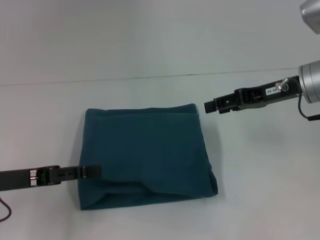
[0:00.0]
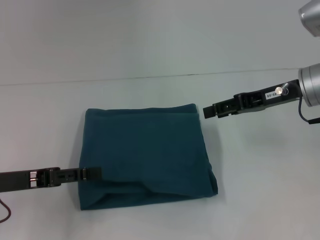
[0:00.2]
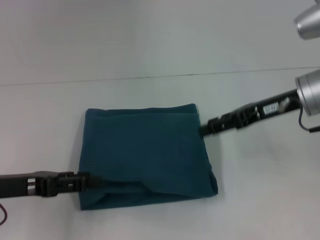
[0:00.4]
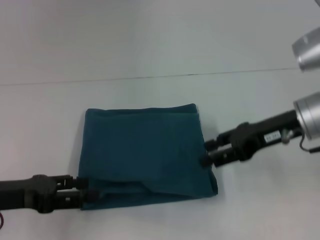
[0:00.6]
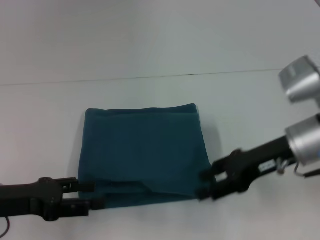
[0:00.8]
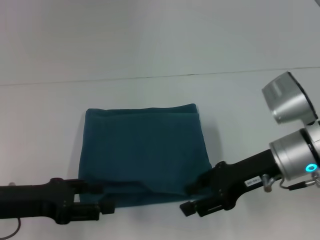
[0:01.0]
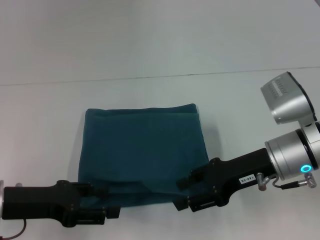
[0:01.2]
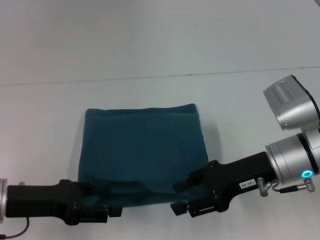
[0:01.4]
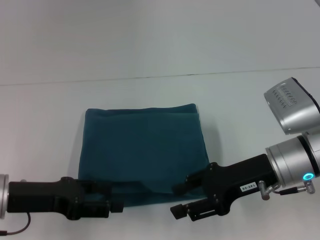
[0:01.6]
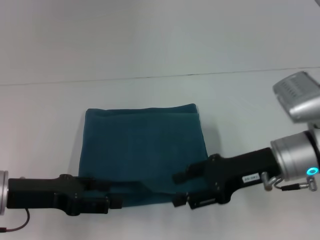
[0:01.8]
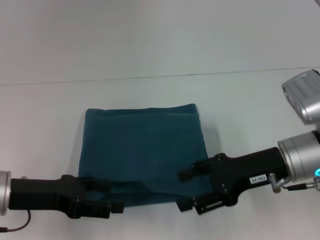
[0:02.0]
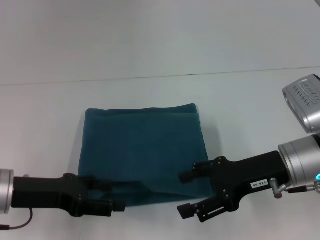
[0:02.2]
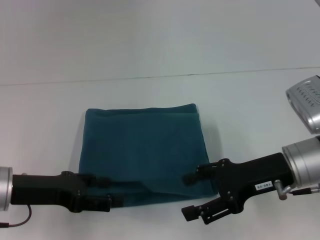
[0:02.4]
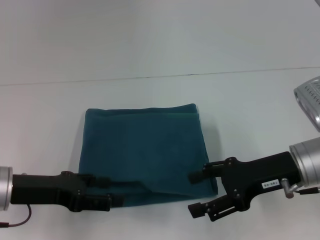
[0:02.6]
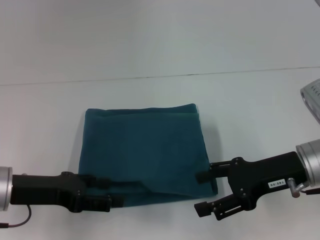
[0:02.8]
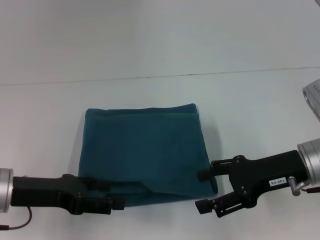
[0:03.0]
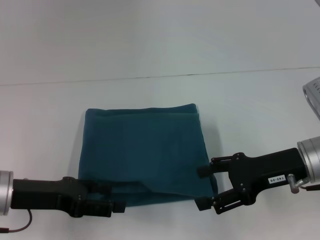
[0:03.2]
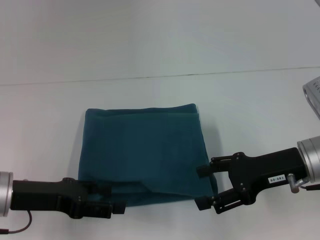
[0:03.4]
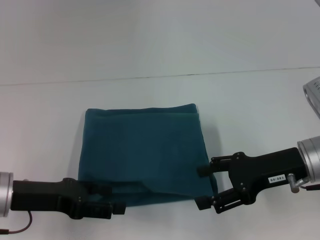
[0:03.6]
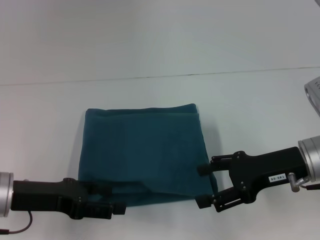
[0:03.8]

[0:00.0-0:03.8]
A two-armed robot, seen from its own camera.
0.0 to 1.2 s: The right gripper is displaced backward, downward and to the left by some 10 cm.
1.2 to 2.6 s: There are only small adjustments of the grippers.
2.6 to 3.8 s: Neither gripper changes place.

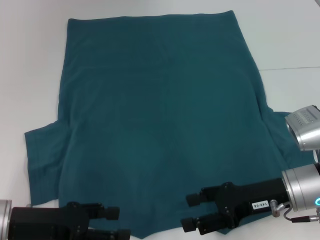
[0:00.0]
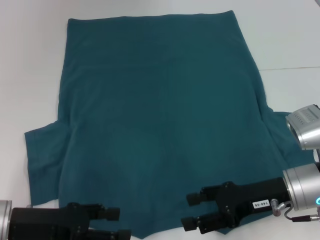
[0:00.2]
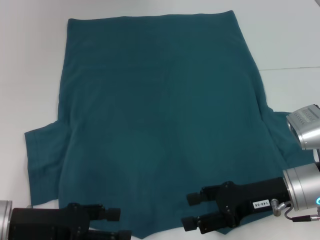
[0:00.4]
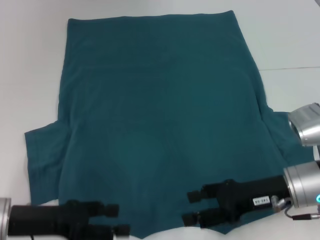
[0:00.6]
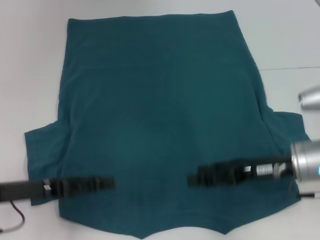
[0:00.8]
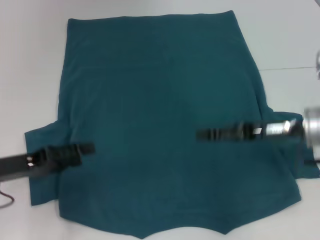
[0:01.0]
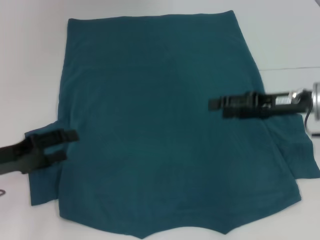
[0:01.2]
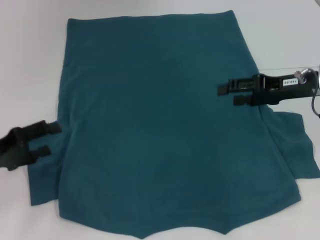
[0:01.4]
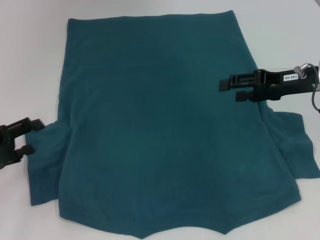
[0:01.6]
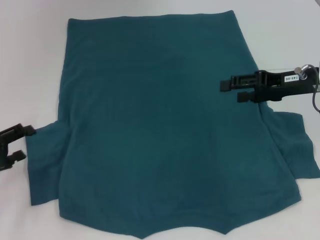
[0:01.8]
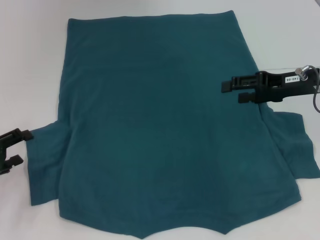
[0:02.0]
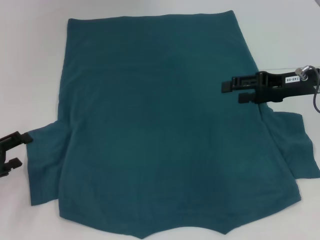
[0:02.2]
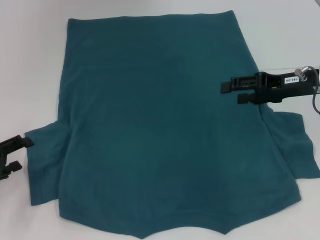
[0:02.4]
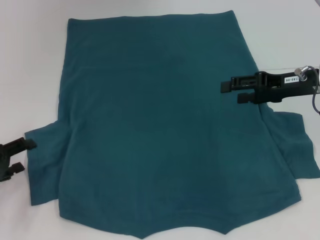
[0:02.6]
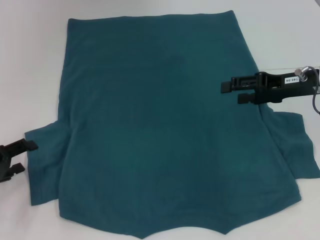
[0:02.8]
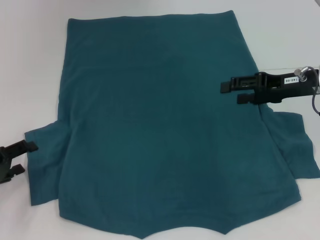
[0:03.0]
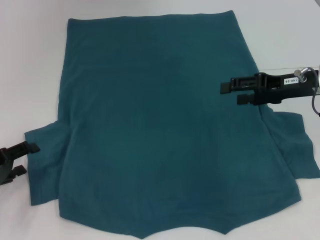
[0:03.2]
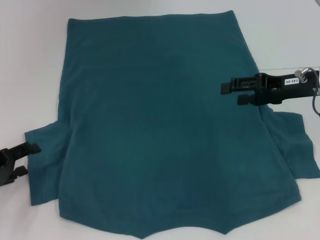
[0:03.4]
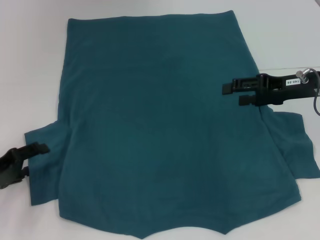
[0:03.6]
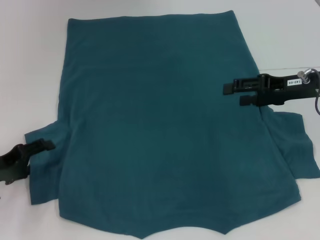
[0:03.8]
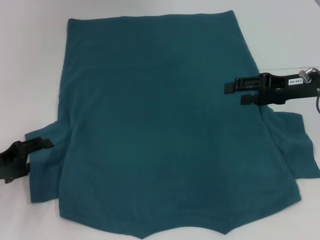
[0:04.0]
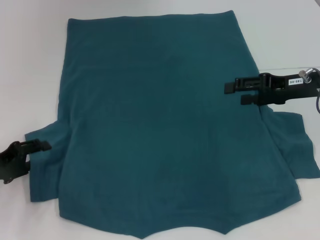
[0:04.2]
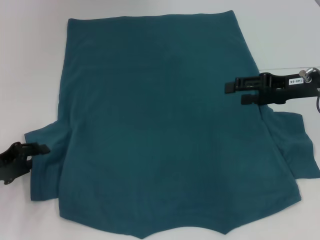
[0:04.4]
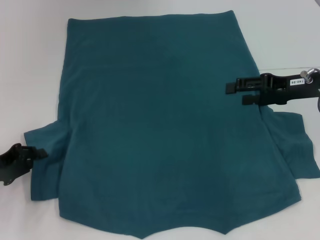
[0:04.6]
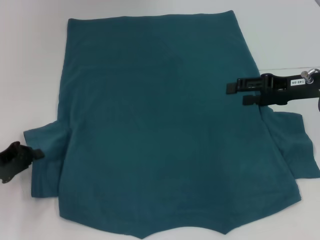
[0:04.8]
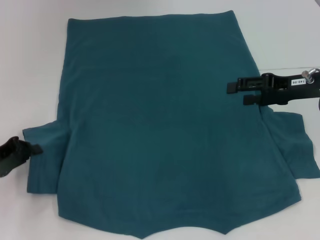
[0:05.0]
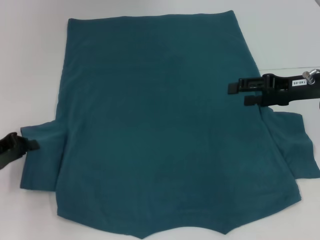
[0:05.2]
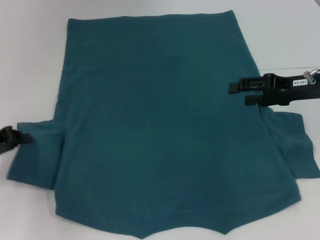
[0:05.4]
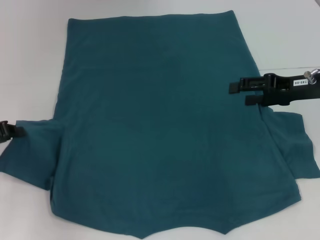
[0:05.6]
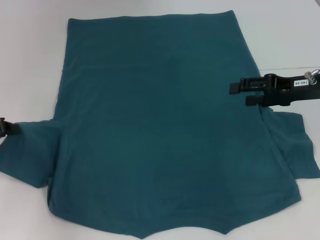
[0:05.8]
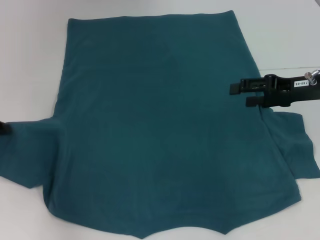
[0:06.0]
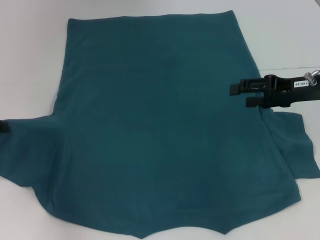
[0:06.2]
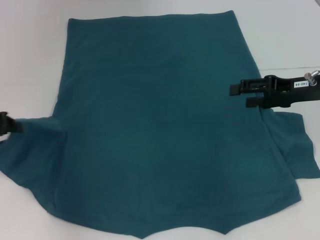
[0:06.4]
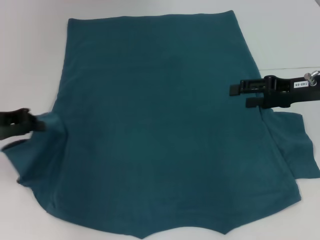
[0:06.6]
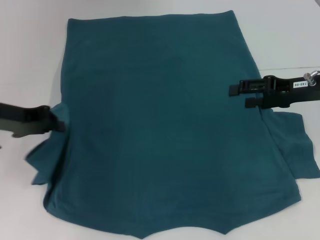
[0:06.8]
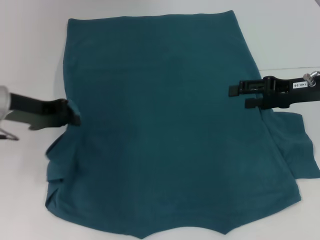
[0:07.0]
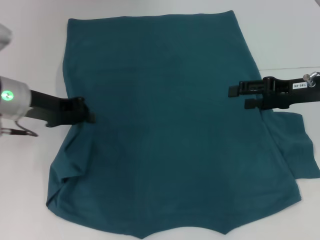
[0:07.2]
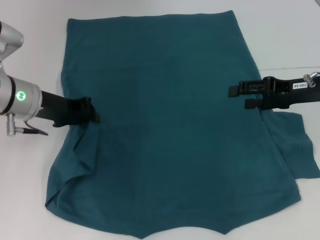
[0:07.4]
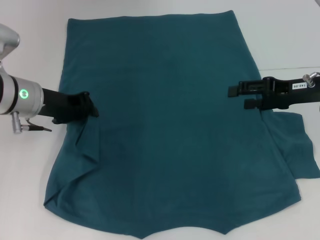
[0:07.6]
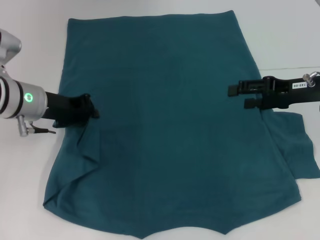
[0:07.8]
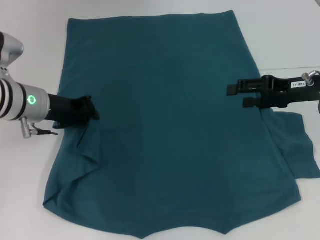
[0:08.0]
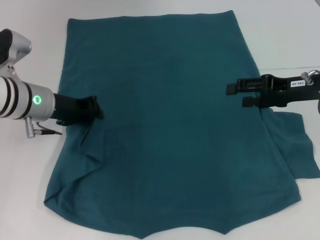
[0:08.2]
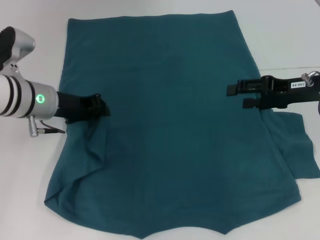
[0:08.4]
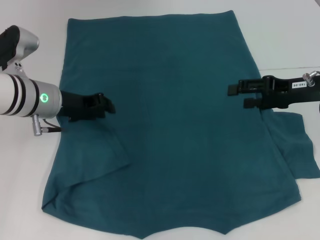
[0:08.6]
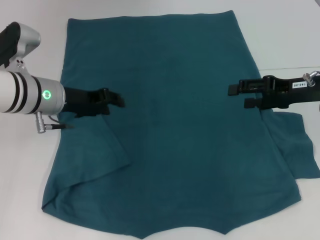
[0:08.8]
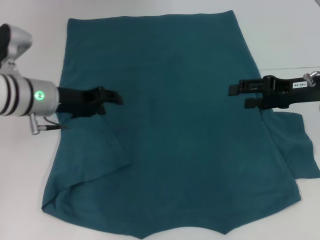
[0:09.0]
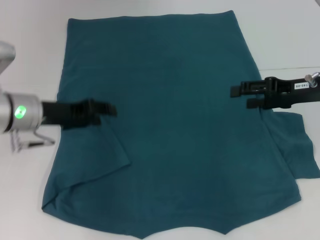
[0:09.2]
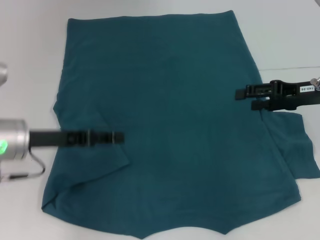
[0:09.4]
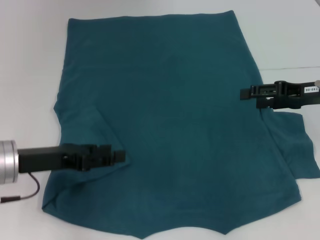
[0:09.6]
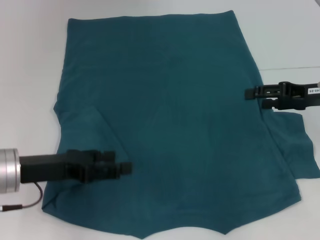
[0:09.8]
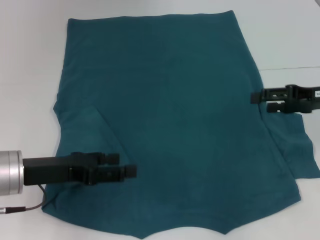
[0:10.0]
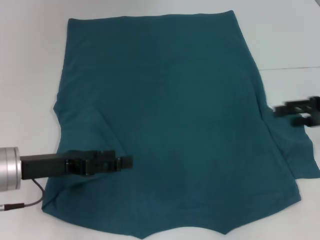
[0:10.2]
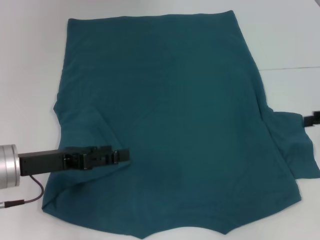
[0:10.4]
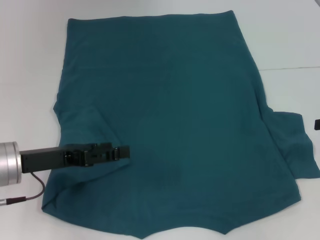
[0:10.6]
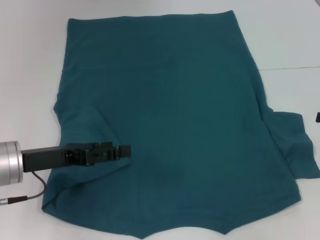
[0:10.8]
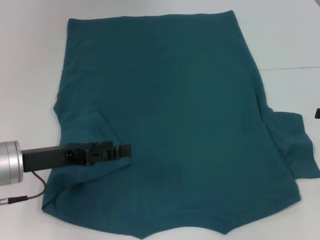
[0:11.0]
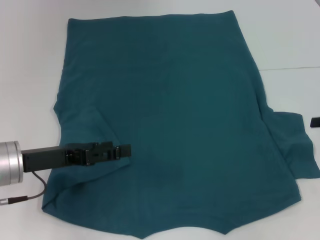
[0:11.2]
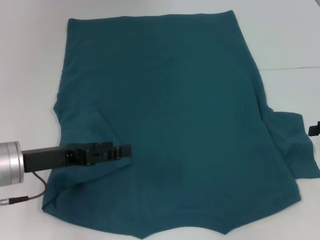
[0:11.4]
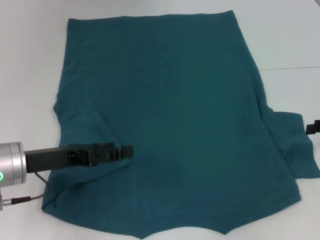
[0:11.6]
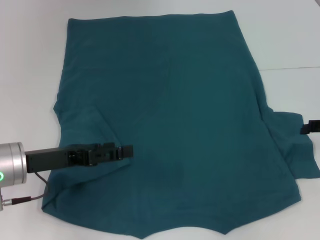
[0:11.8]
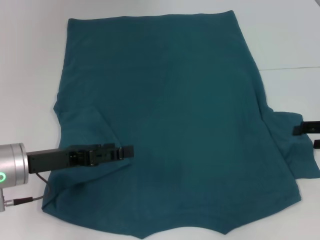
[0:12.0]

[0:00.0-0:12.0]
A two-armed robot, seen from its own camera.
Step, 0.0 to 8.6 s: Fold the bottom left sleeve with your left hand.
0.0 to 1.6 s: The right gripper heads forward, upward and to the right, covering about 15 cm, while the left gripper travels to the left and forward by some 10 cm.
1.6 to 4.4 s: The grippers stay close to where they were, moving slightly.
4.4 to 6.0 s: The left gripper goes roughly 5 cm upward, and closes its fingers.
6.0 to 7.6 s: The left gripper is displaced to the right and forward by approximately 15 cm.
7.6 to 9.0 s: The left gripper opens its fingers.
9.0 to 10.4 s: The right gripper goes some 10 cm to the right, while the left gripper goes some 10 cm backward, and opens its fingers.
10.4 to 12.0 s: The right gripper changes place by about 5 cm.

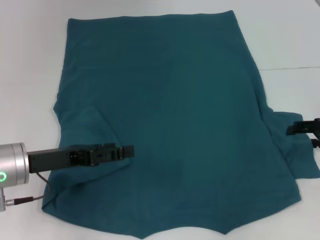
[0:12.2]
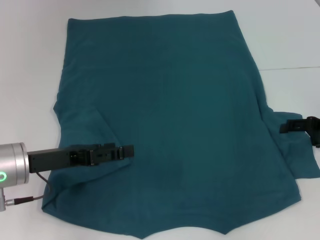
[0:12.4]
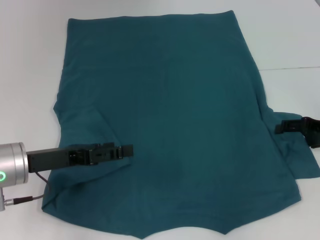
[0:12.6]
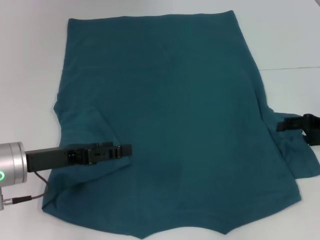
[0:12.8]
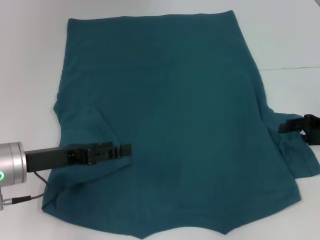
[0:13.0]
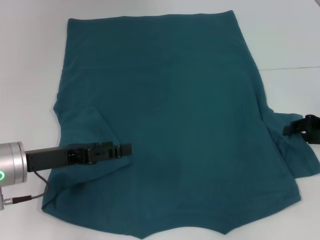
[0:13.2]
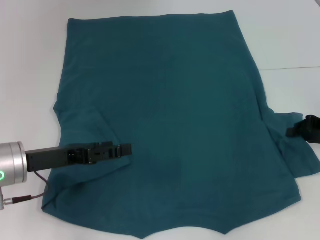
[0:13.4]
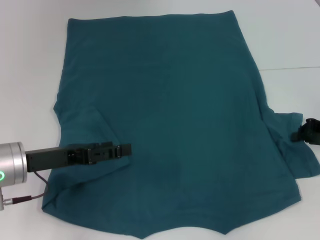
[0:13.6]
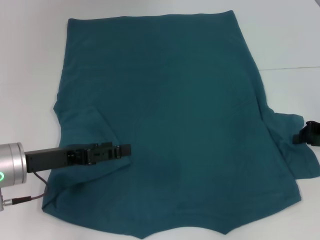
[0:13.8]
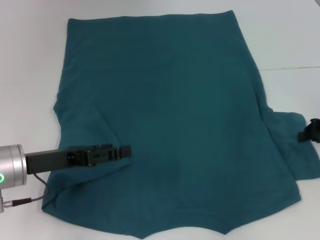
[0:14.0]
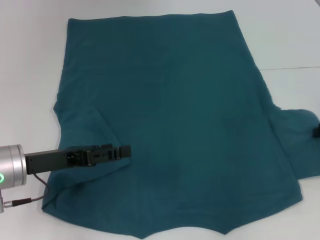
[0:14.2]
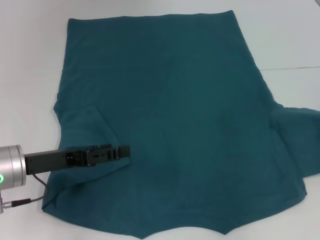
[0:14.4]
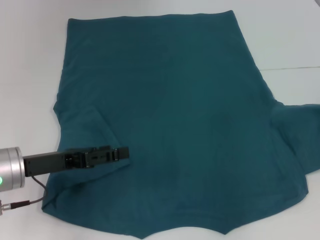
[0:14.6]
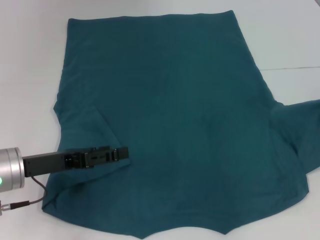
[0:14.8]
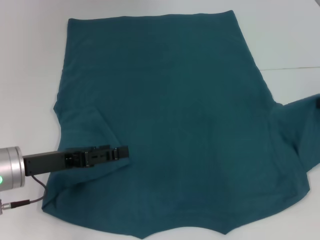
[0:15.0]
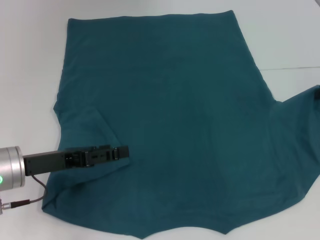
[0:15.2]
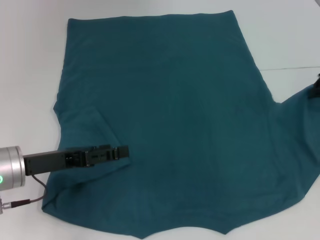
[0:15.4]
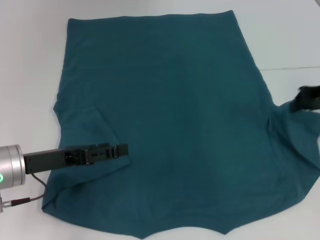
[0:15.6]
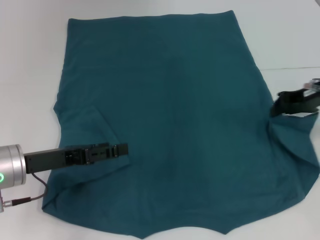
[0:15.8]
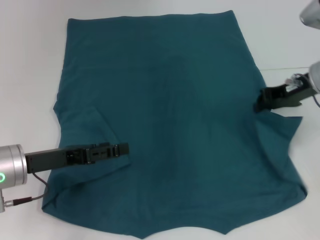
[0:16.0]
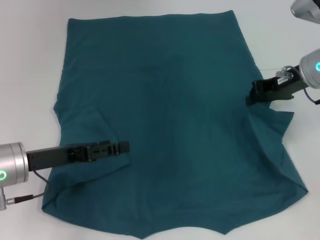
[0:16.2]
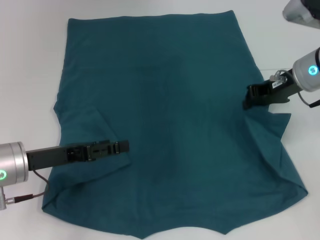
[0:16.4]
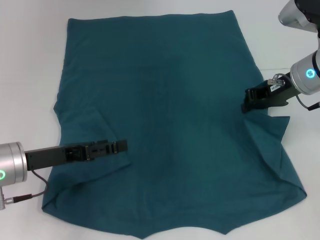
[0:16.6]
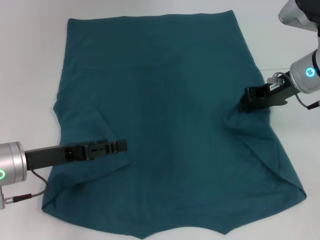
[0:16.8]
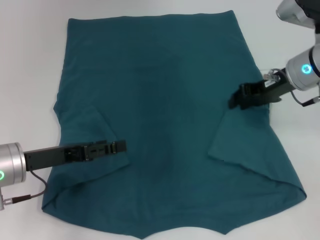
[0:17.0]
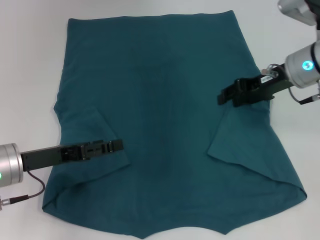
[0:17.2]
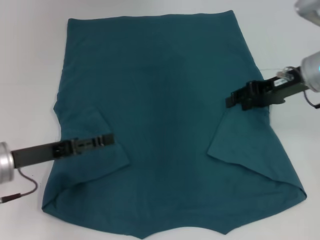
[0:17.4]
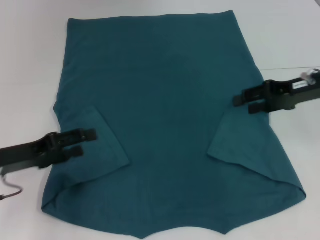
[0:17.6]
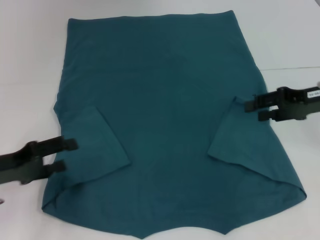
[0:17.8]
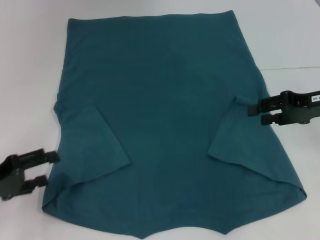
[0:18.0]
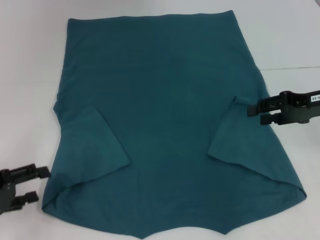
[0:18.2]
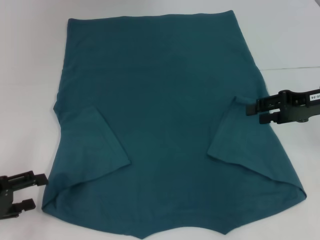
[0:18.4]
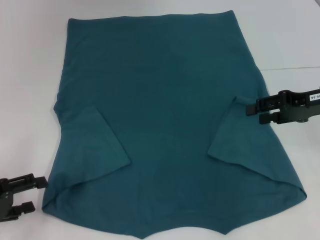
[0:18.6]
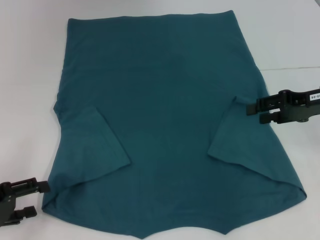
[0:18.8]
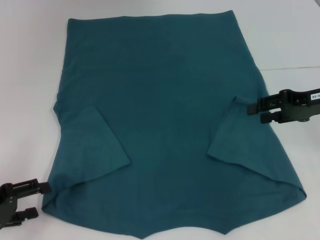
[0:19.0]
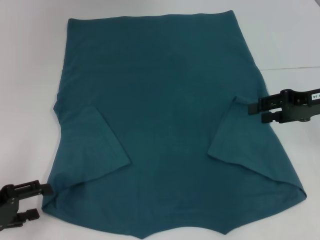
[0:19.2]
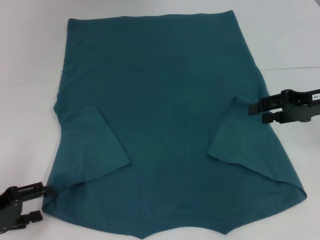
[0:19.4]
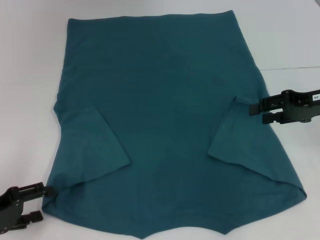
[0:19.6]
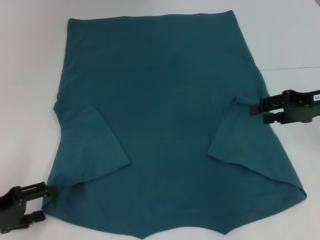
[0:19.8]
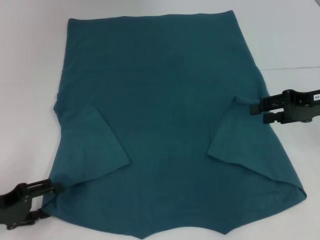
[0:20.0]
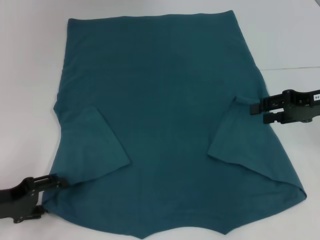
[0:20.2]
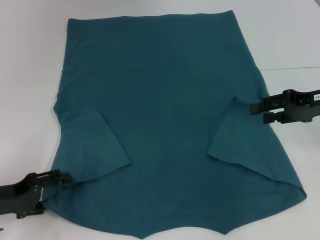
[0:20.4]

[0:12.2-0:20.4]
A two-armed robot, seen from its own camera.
Step, 12.2 to 17.0 s: Fold the bottom right sleeve to the right.
12.2 to 13.8 s: The right gripper closes its fingers.
13.8 to 15.4 s: The right gripper is displaced upward by roughly 10 cm.
15.4 to 17.2 s: The right gripper travels to the left by about 10 cm.
17.2 to 18.8 s: The left gripper heads to the left and backward, covering roughly 10 cm. The right gripper shifts roughly 10 cm to the right and backward.
18.8 to 20.4 s: The grippers stay close to where they were, moving slightly.
